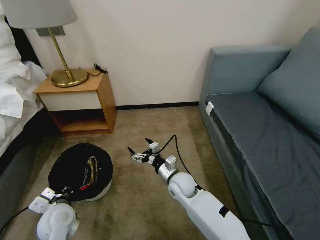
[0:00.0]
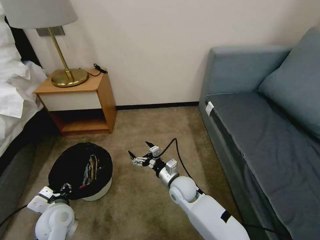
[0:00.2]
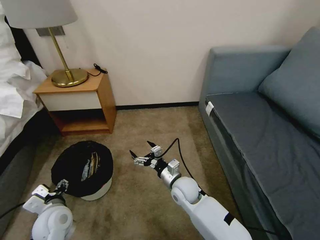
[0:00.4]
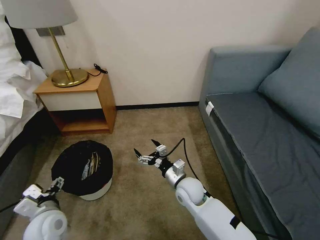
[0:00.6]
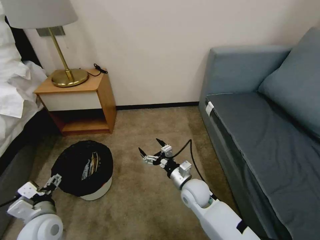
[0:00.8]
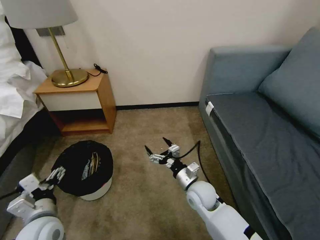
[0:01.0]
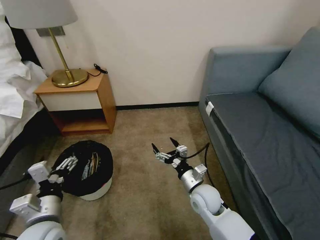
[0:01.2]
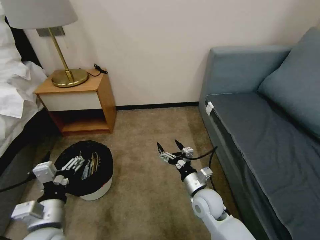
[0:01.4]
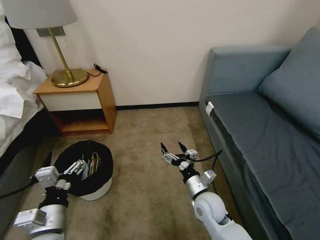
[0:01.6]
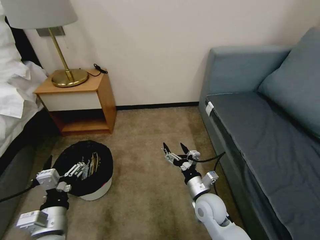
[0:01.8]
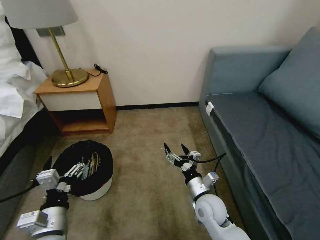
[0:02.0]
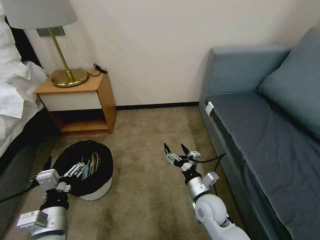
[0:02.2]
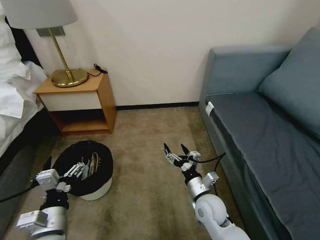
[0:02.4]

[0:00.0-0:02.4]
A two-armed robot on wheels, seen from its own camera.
Task of the whole recording: Pick up the trash bin, then pick up the garbage on the floor and place it into the trash bin.
0:00.0 to 0:01.2: The right gripper goes about 10 cm to the right and backward. Meanwhile the left gripper shifts about 10 cm upward and backward, and opens.
0:01.2 to 0:02.4: The grippers move only a little.
